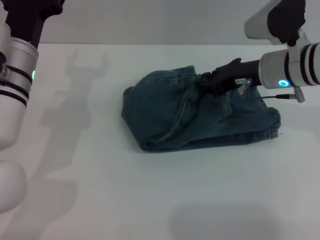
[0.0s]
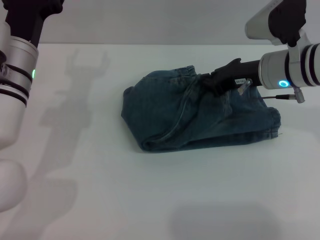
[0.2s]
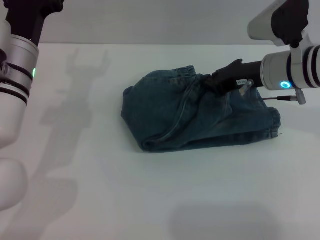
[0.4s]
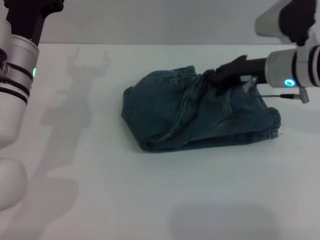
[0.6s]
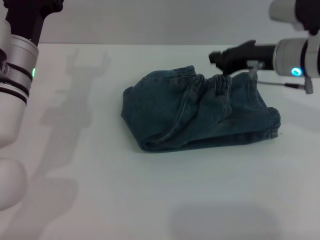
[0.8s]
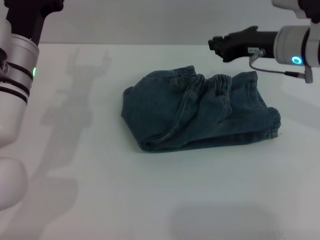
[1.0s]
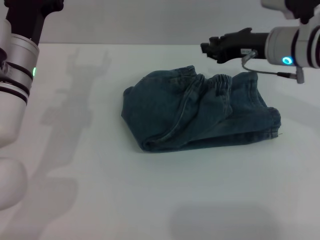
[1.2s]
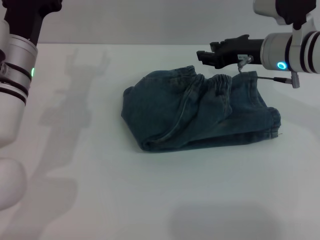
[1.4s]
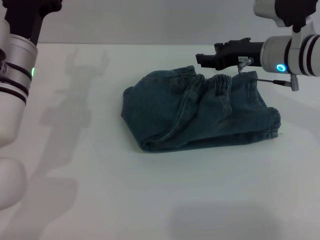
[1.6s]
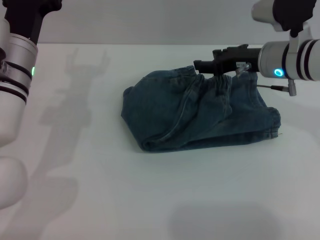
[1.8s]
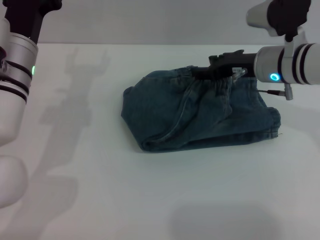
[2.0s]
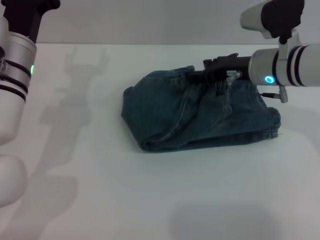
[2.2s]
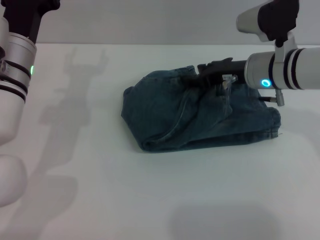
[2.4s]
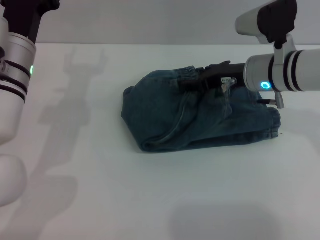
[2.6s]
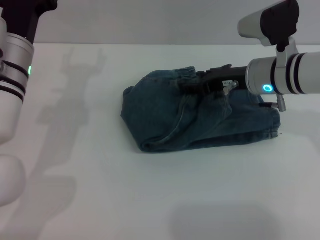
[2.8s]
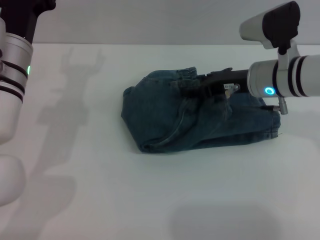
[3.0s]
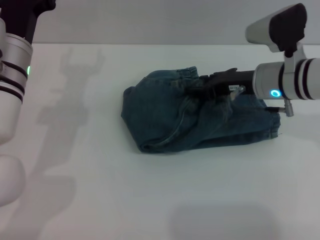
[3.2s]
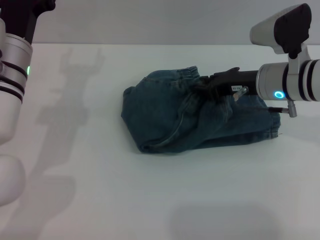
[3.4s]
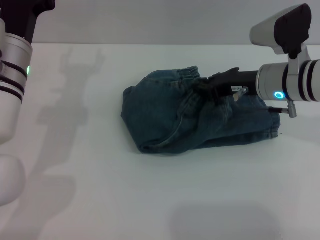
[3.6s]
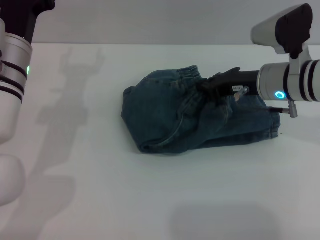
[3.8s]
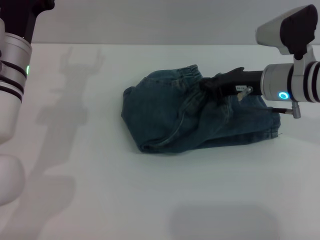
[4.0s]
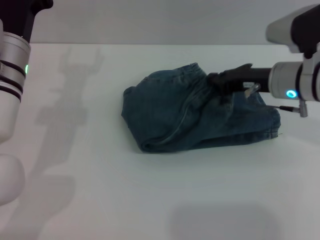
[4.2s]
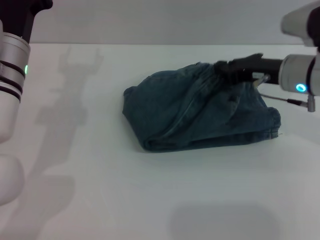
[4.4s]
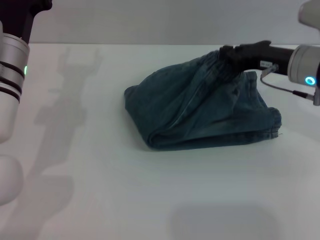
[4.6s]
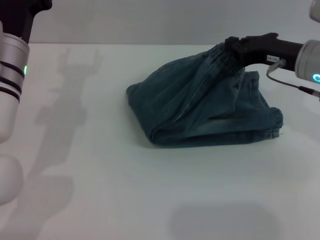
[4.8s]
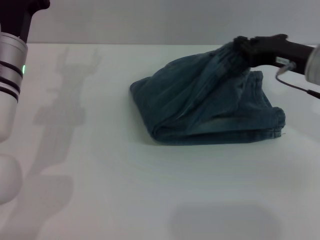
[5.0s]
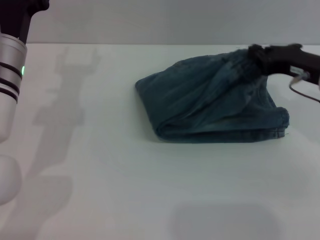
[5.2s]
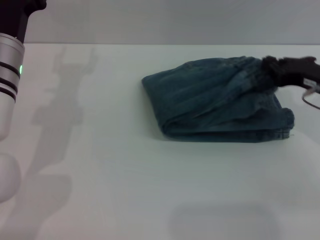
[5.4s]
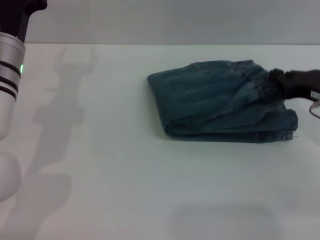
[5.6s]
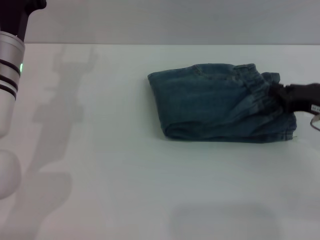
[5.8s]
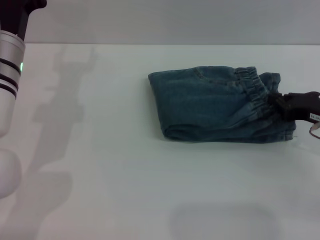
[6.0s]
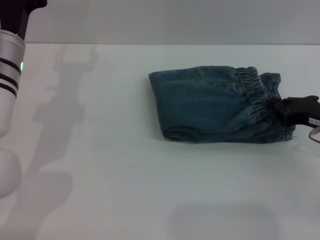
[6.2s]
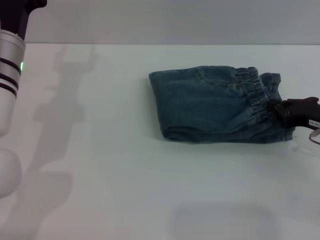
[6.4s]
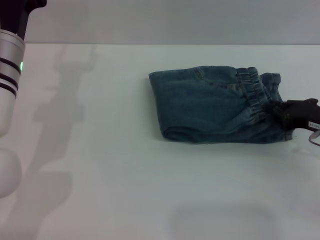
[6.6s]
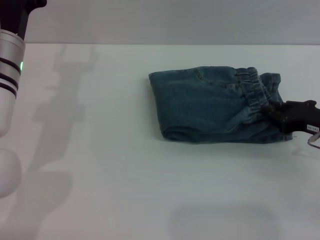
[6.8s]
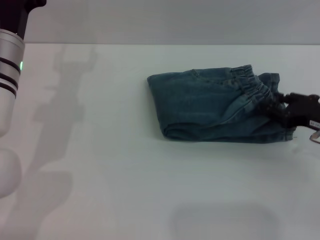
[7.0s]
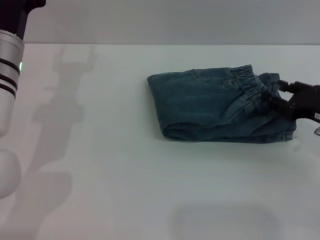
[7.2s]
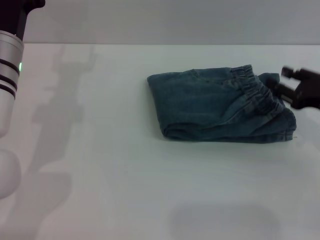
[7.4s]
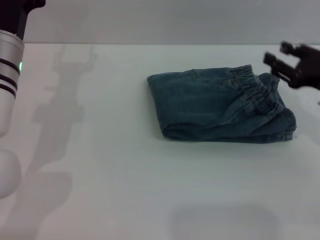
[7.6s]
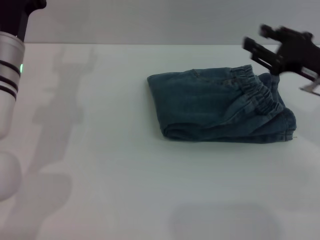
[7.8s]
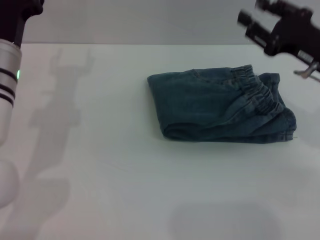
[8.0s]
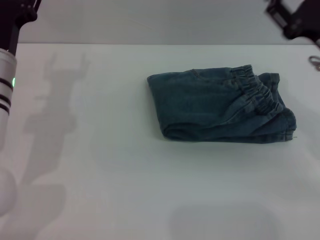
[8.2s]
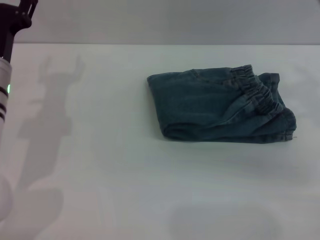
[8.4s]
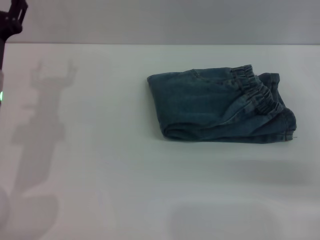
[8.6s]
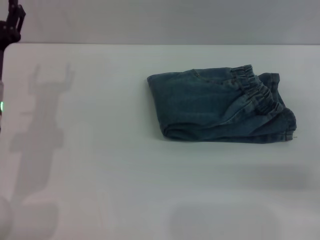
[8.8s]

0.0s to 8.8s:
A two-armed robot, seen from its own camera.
Step, 0.0s to 7.4s: Place the folded trousers onto the center area with the right grippers.
0.0s to 1.4s: The right gripper closes and opens again.
1.4s to 3.0s: The right gripper opens its fingers.
3.0s to 4.4s: The right gripper closes up.
4.4s to 5.8s: The right gripper heads to the right and backward, covering some 10 cm.
5.8s to 7.4s: The right gripper opens.
7.4s to 8.8s: The left gripper moves some 5 cm.
